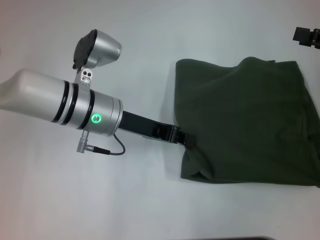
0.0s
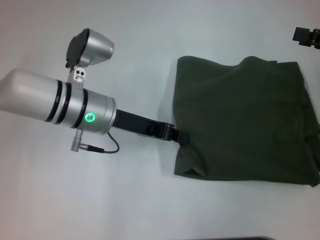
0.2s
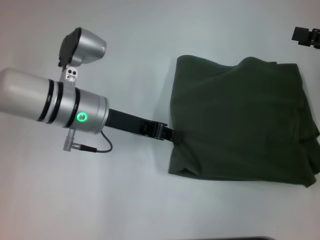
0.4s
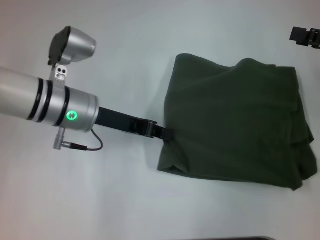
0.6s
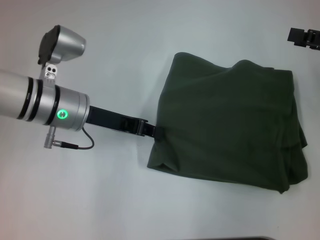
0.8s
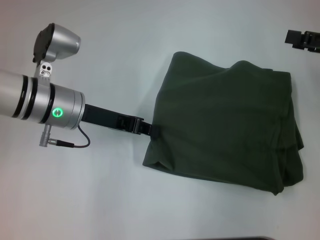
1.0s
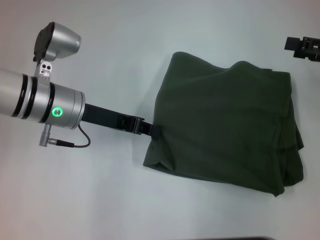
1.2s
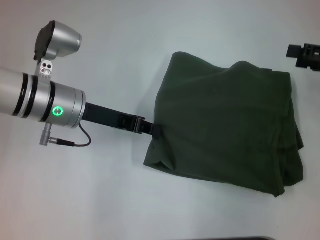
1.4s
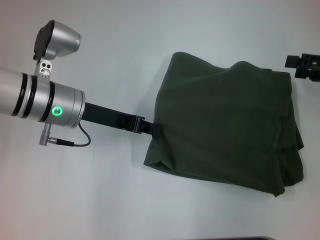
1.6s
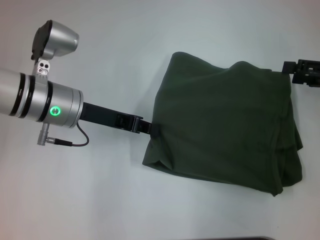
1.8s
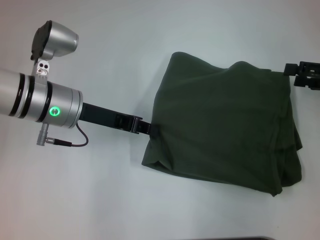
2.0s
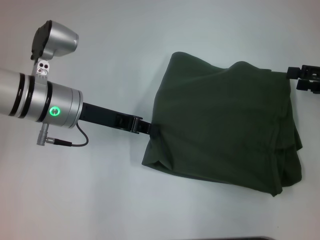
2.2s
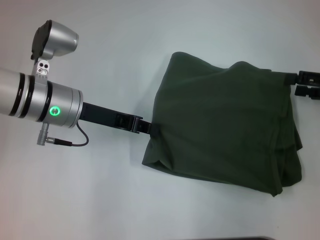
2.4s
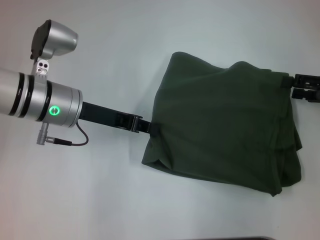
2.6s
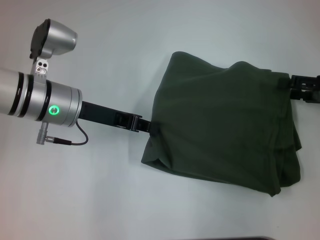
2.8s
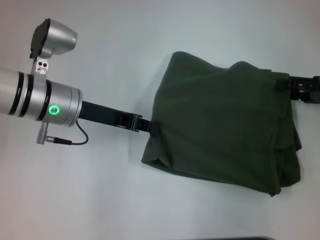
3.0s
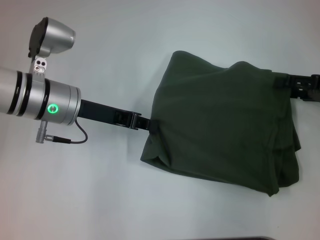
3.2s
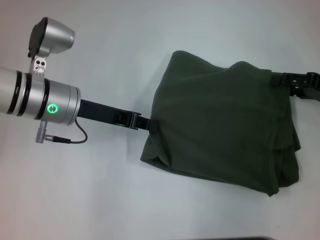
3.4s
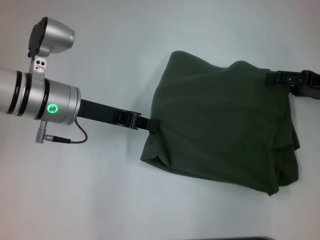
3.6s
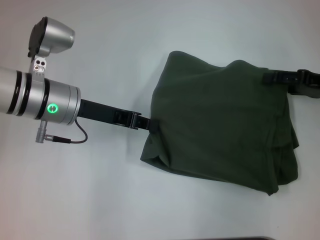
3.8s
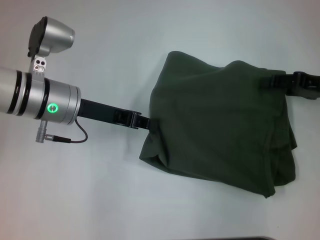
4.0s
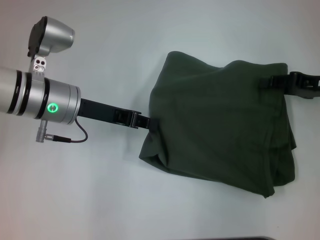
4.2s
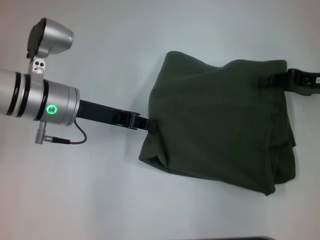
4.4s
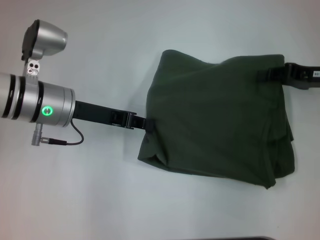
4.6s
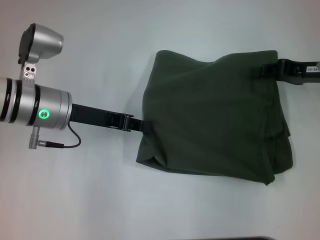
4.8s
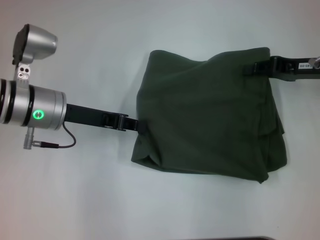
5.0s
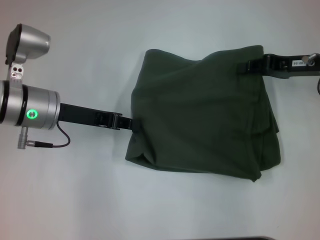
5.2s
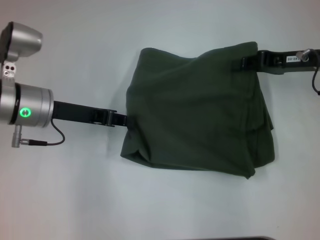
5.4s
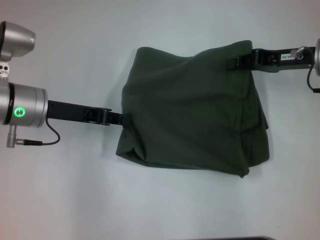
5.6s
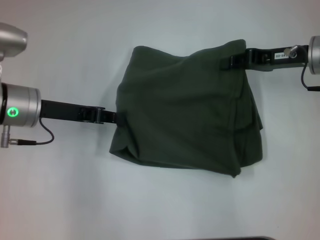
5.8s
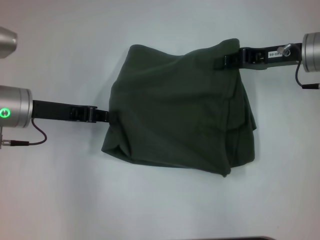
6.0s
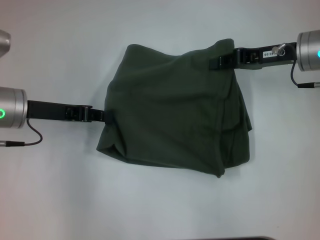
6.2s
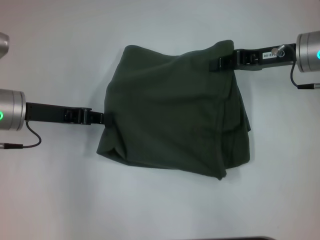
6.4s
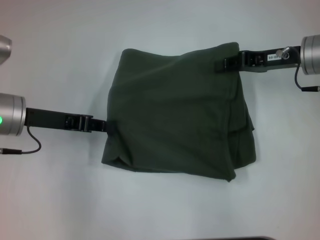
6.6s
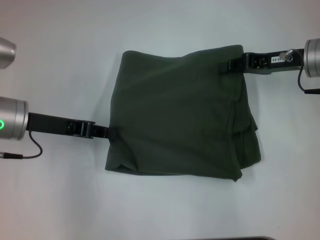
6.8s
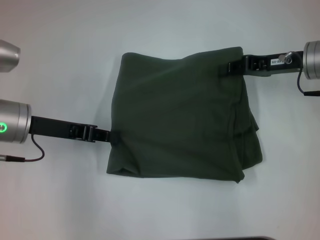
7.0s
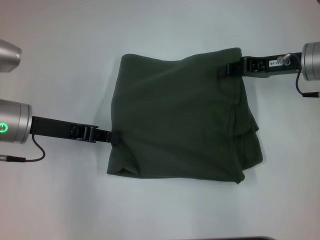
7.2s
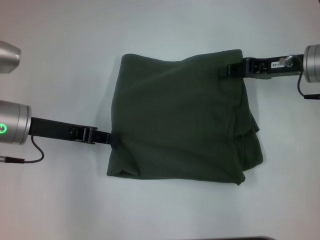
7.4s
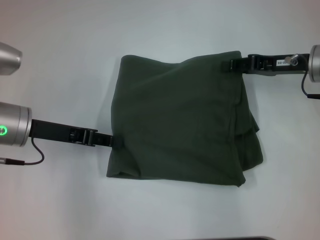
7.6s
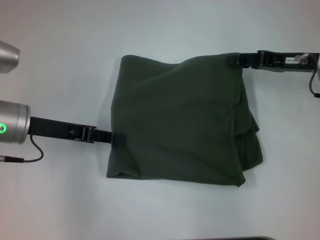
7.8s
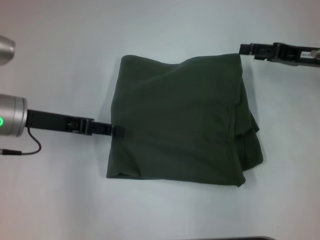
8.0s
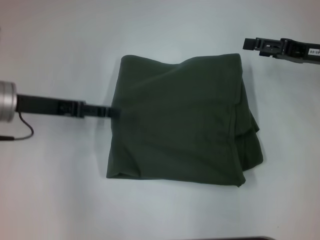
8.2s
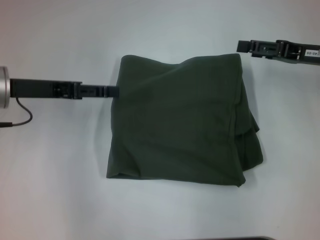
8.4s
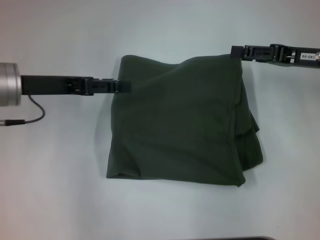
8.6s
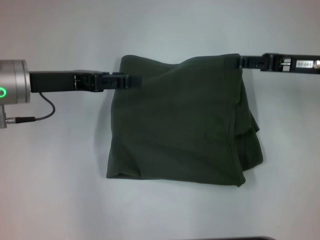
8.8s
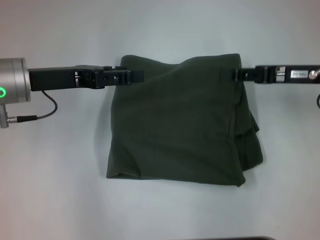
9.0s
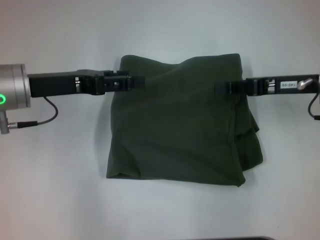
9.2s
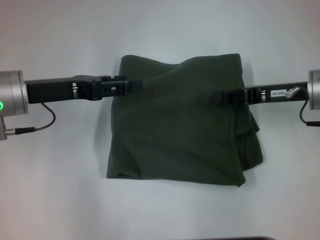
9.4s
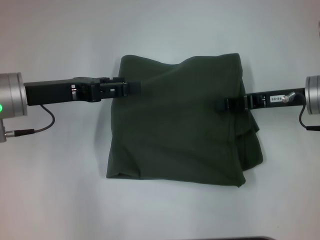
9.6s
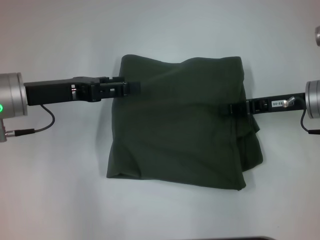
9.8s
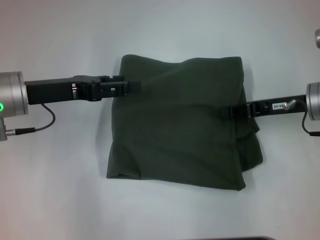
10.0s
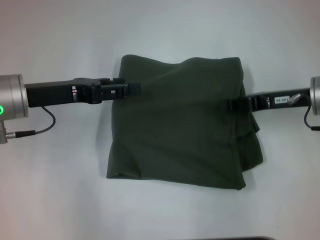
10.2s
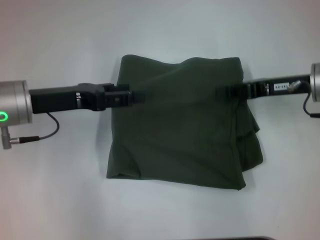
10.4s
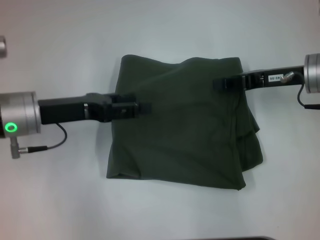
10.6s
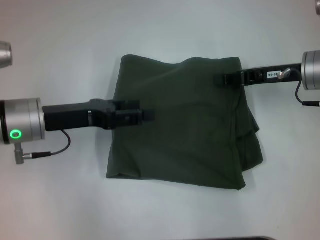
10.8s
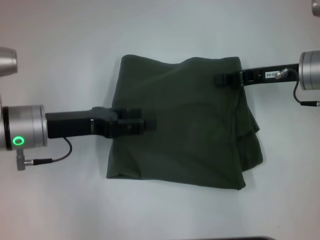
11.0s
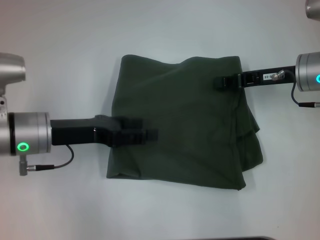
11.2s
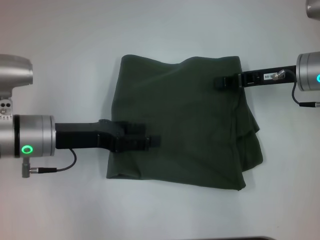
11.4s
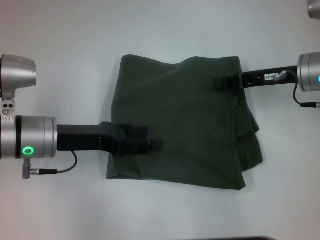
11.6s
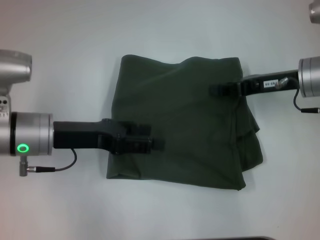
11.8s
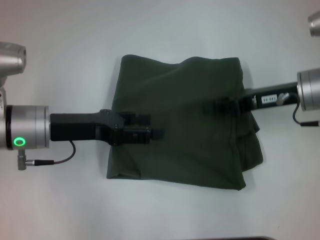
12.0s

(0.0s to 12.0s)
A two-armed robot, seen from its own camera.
0.0s - 1.6s: The left gripper is displaced to the left by approximately 5 cm.
1.6s - 3.0s: The grippers stay close to where they were, moving slightly.
3.0s - 4.4s: The right gripper closes up.
4.4s - 6.0s: The grippers both shift to the left by about 5 cm.
6.0s - 7.6s: The grippers move only a little.
7.6s - 9.0s: The left gripper opens up. The right gripper opens.
9.0s - 10.4s: The right gripper closes.
10.4s - 12.0s: The grippers make only small movements.

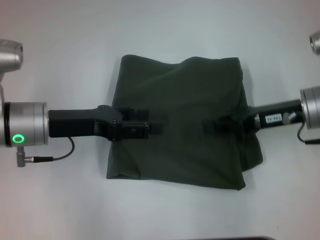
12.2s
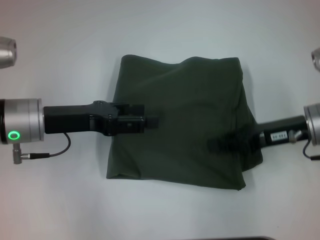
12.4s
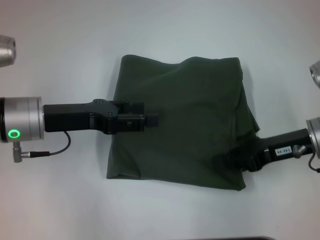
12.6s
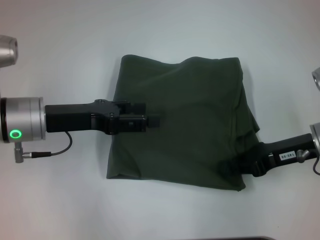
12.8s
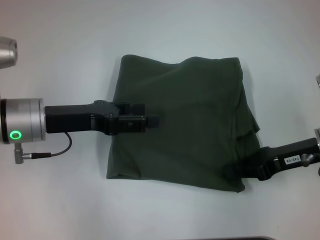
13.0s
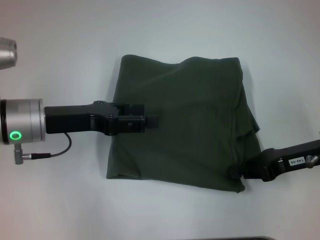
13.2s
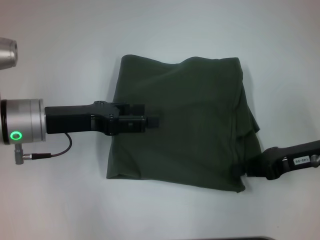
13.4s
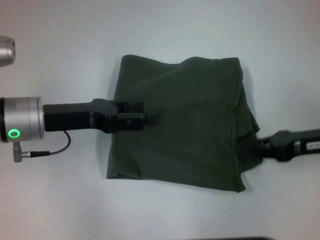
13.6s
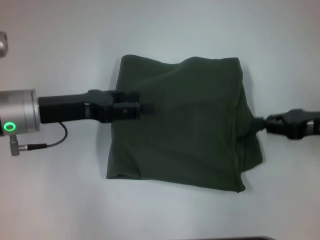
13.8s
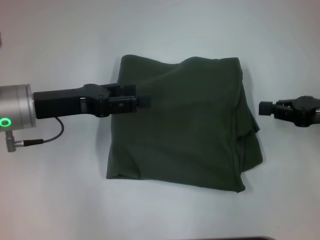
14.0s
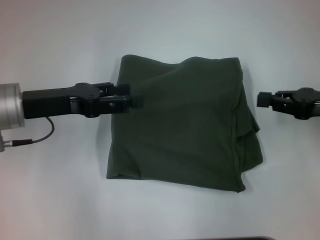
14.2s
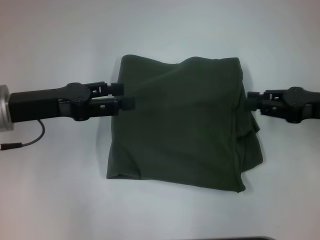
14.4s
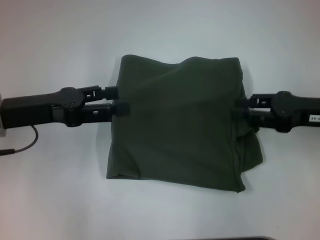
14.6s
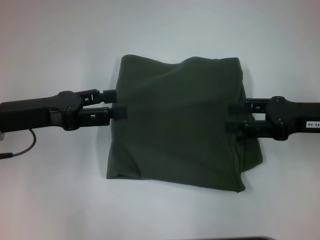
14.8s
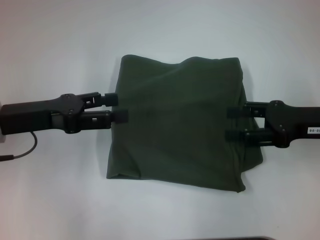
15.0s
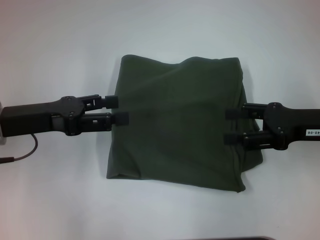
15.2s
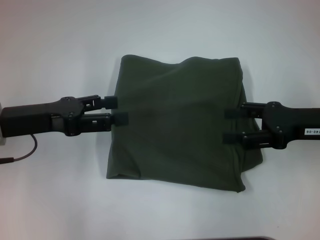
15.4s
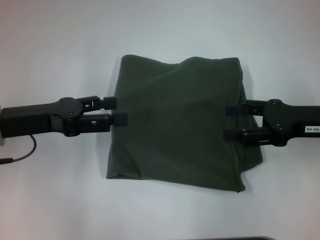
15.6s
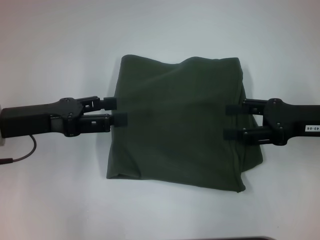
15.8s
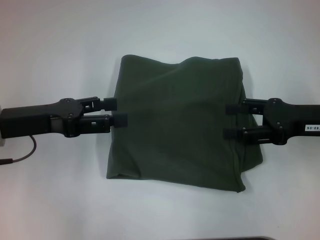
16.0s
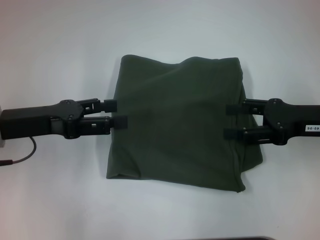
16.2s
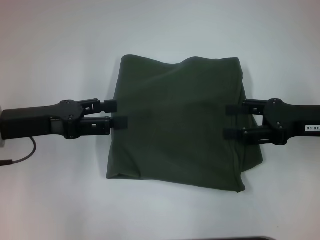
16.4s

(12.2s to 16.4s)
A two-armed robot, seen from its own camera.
12.2s - 13.6s: The right gripper moves to the right, some 5 cm.
13.6s - 15.0s: The right gripper opens up.
15.0s - 16.4s: Both grippers stay put.

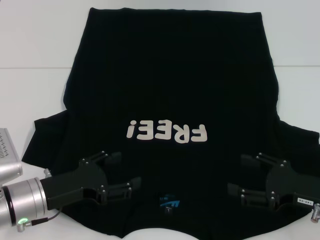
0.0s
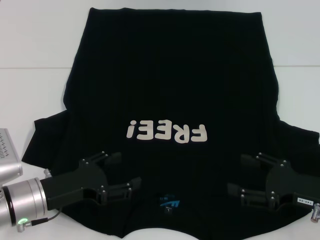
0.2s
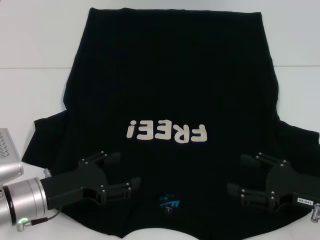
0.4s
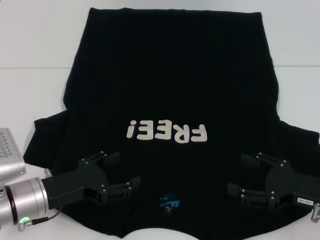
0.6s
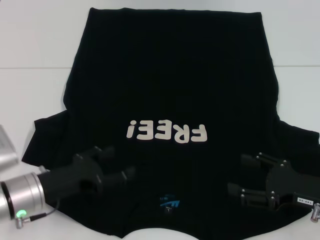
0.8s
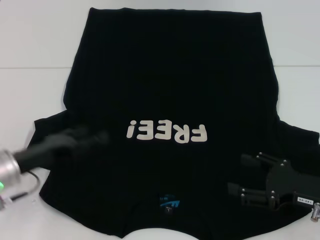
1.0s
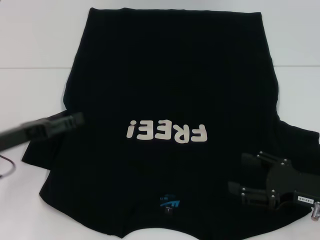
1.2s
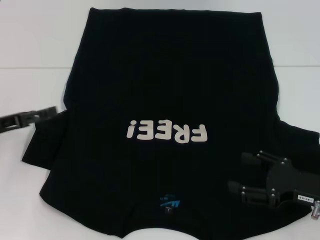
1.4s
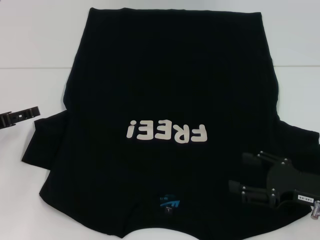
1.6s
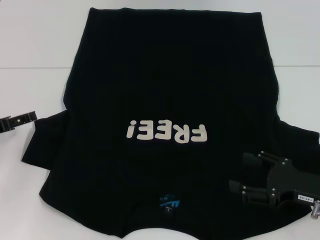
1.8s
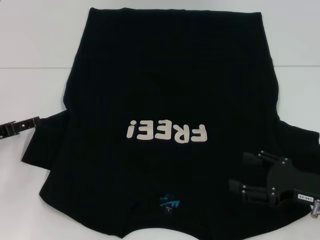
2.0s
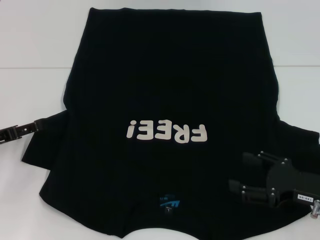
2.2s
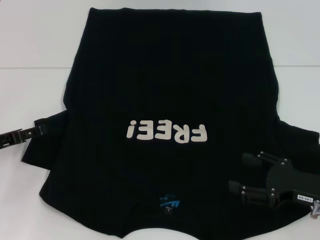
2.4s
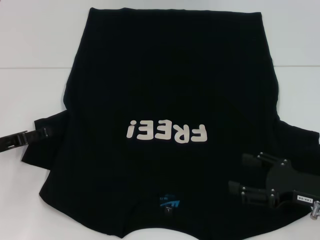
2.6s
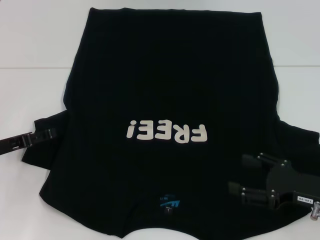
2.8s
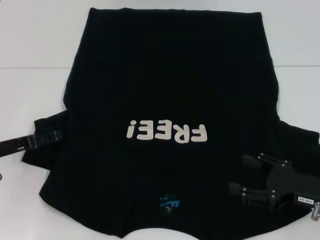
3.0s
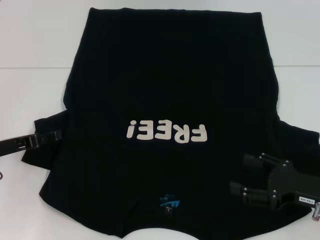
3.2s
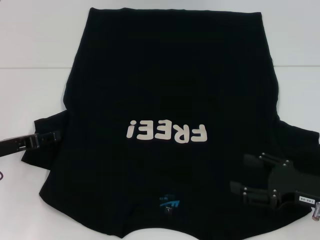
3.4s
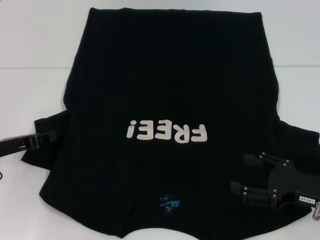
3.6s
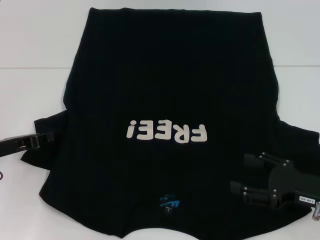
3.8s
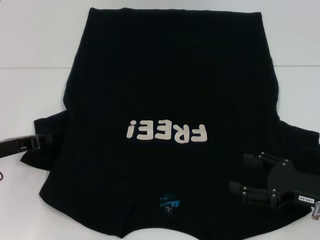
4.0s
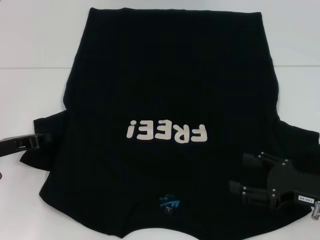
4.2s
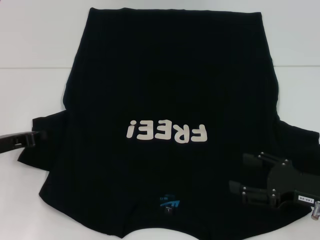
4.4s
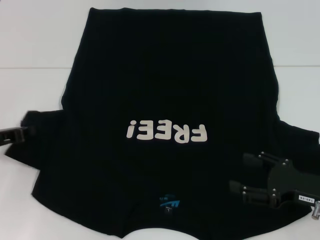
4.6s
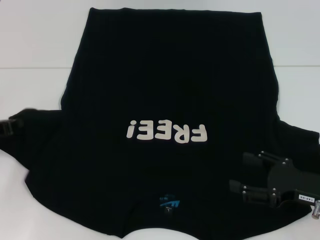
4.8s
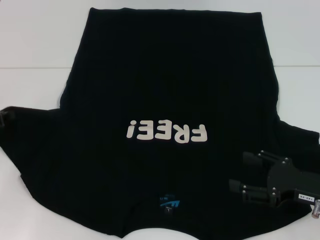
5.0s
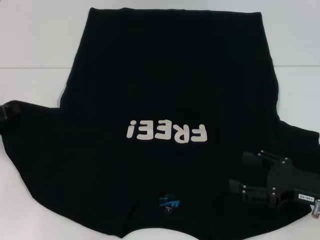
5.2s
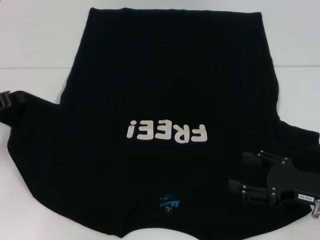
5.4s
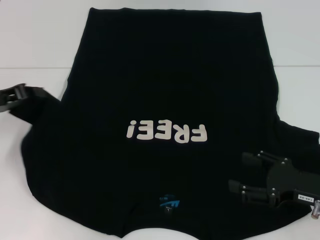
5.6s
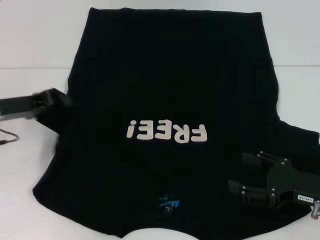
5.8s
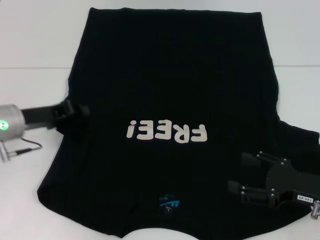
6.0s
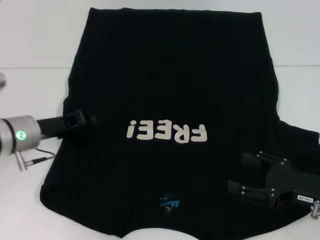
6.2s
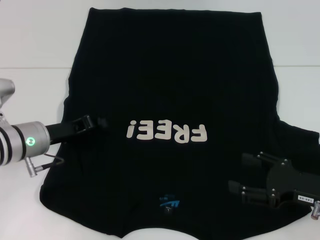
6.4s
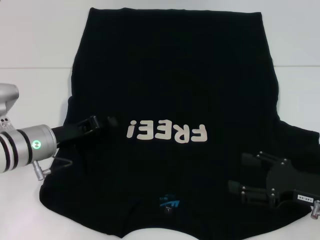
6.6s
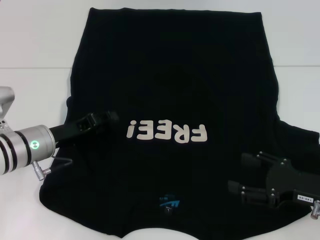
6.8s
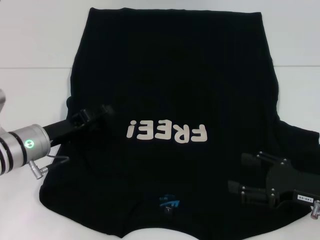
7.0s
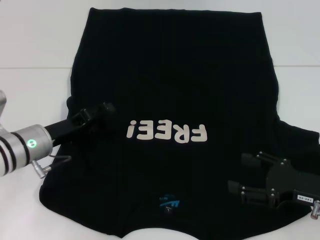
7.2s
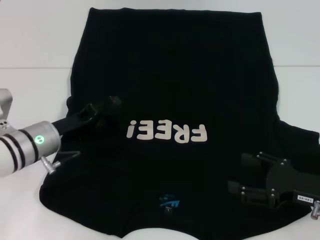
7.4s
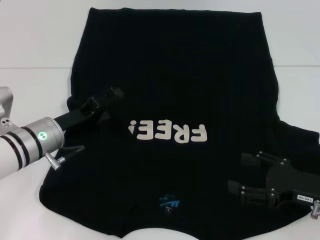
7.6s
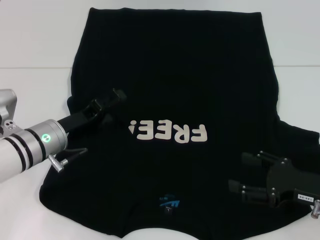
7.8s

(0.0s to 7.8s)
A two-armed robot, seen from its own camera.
Step, 0.0s - 7.8s: Fold the bottom left sleeve with your left hand.
0.0s - 1.6s: The left gripper goes approximately 15 cm to the left, forward and upward.
1.6s - 3.2s: The grippers stay close to where they were, moving slightly.
3.2s - 4.6s: The left gripper closes.
4.6s - 6.2s: The left gripper shifts some 10 cm to the right.
6.2s - 7.8s: The left gripper opens.
